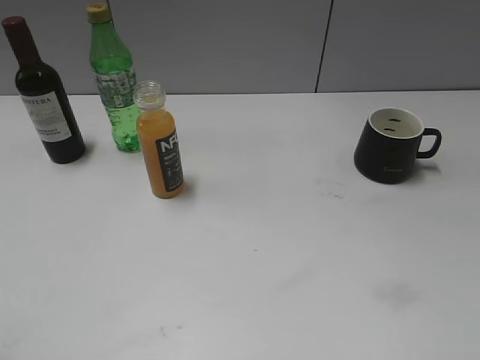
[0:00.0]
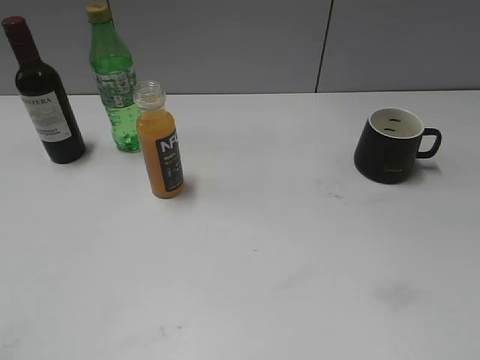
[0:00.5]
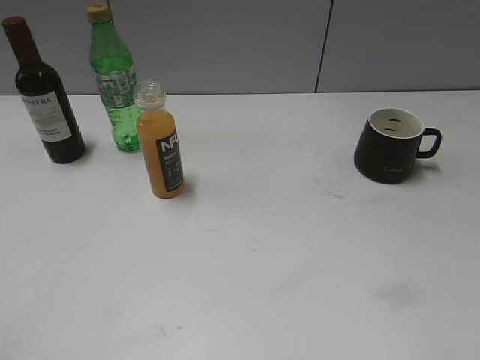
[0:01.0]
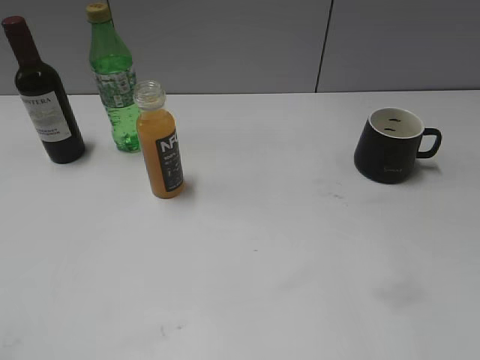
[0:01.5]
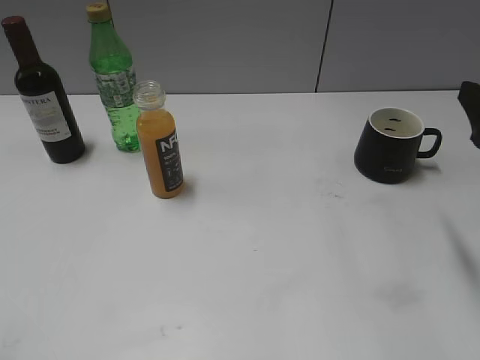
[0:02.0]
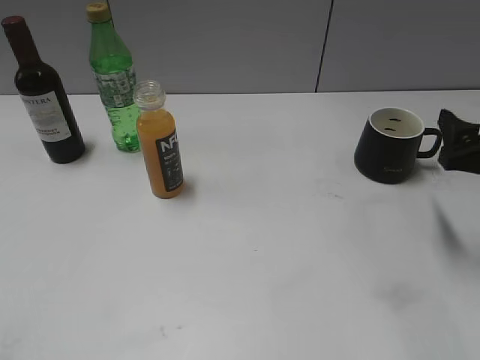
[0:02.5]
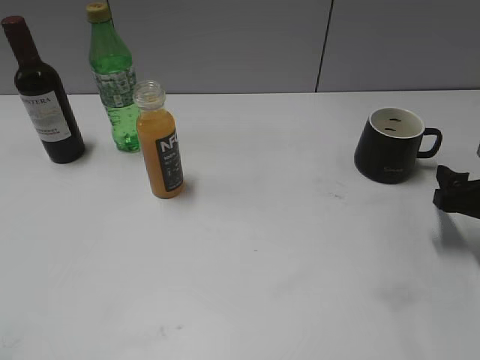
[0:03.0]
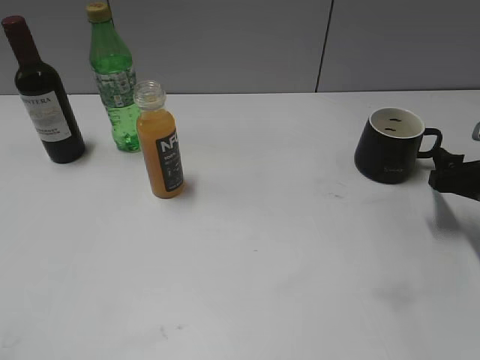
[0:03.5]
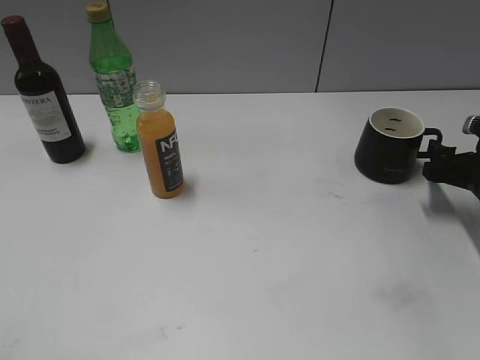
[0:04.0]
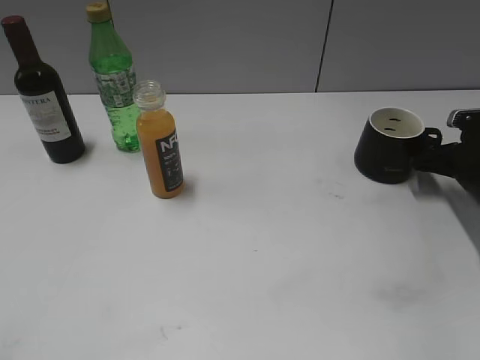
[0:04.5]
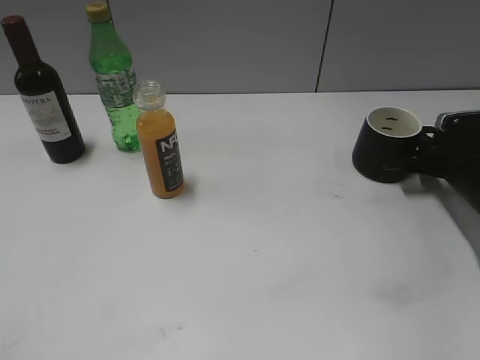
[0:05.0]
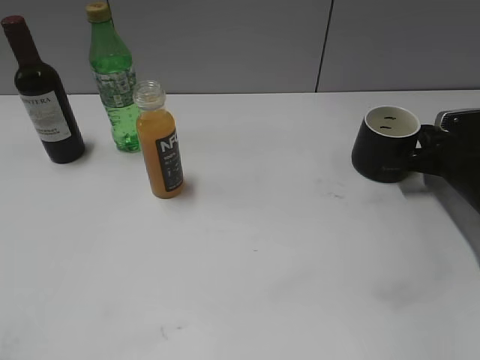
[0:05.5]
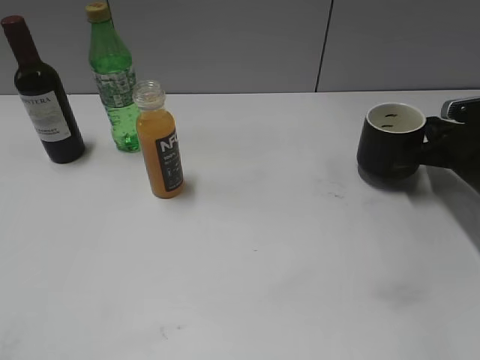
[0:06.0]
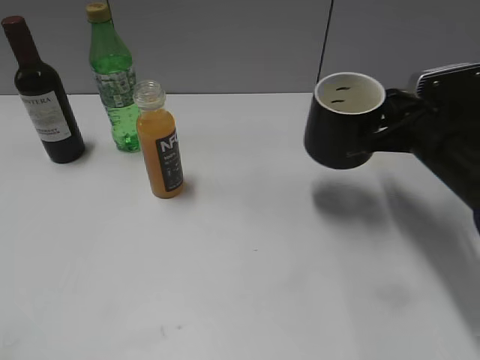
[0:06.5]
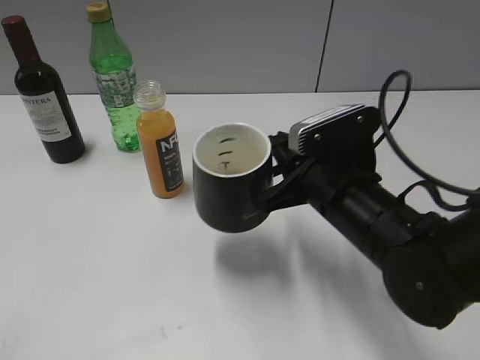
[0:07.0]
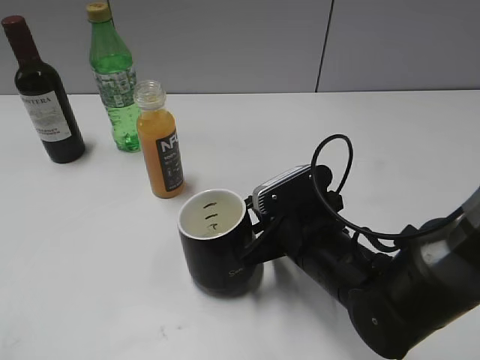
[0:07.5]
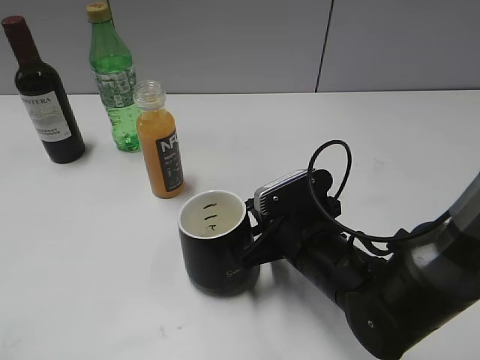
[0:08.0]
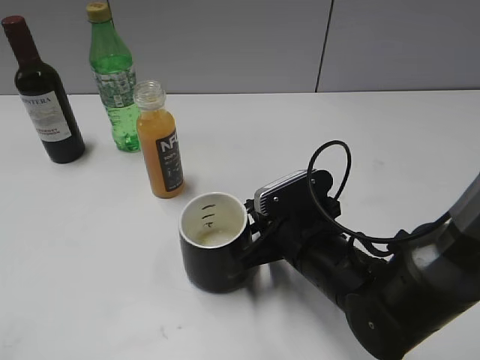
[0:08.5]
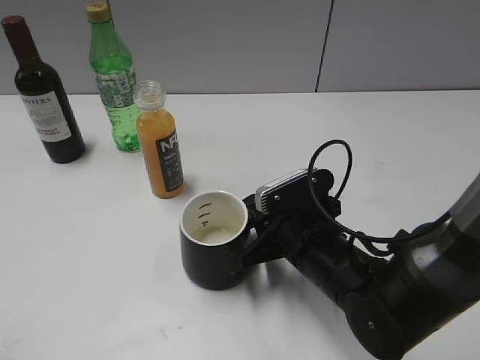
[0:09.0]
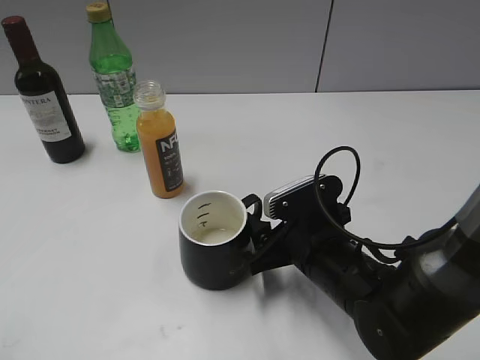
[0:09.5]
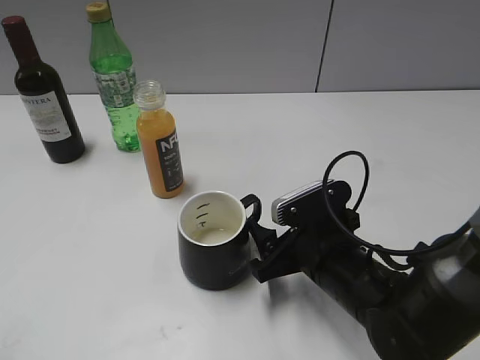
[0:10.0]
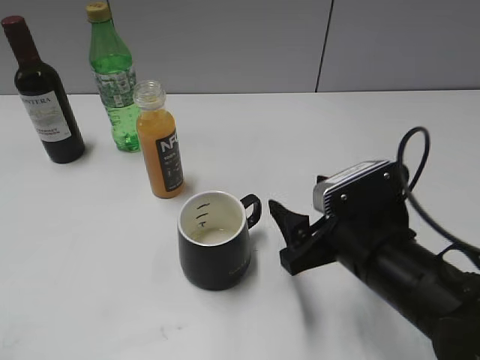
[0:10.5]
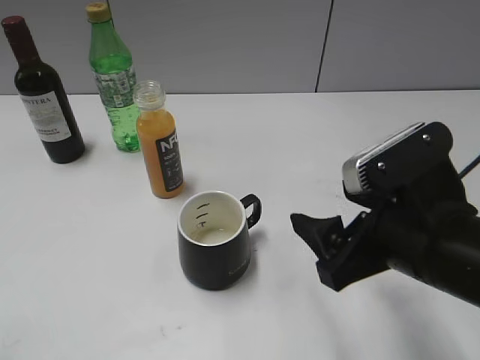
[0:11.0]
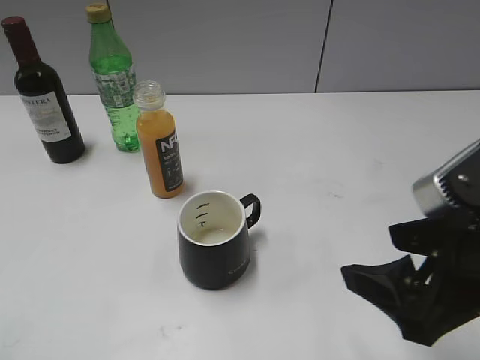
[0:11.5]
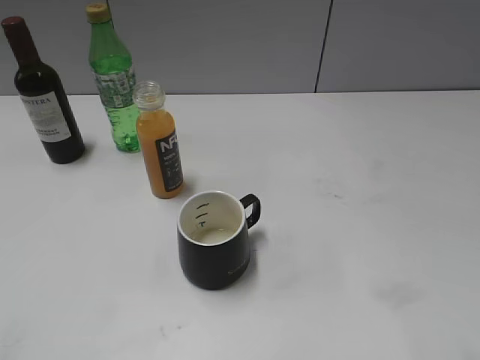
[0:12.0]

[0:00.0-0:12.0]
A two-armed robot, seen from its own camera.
Step, 0:02.0 to 0:05.0: Grasp the black cup with right gripper.
Step, 0:05.5 to 0:09.0: Place the black cup in the center of view with right gripper.
0:02.0 to 0:04.0: The right gripper heads downward and forward, covering some 20 cm.
0:04.0 to 0:06.0: The right gripper closes its fingers.
0:06.0 to 0:08.0: The right gripper moves to the left and backward, some 25 cm.
0:08.0 to 0:10.0: The right gripper opens.
0:10.0 to 0:12.0: The right gripper moves upward, to the right and backward, about 25 cm.

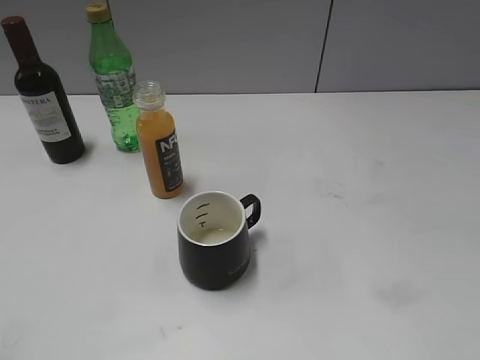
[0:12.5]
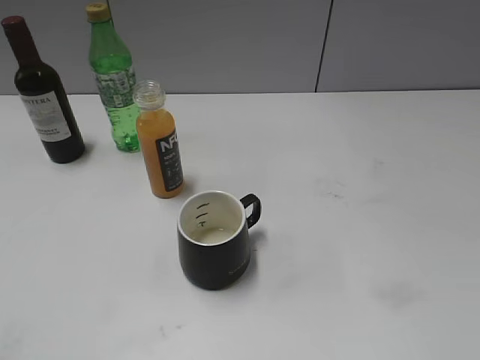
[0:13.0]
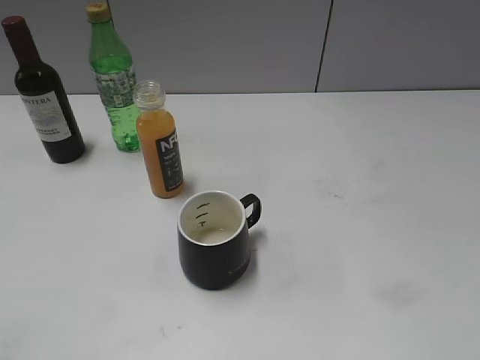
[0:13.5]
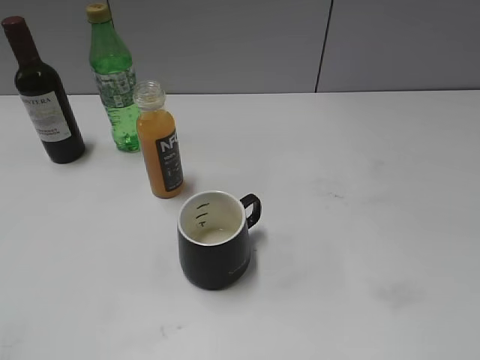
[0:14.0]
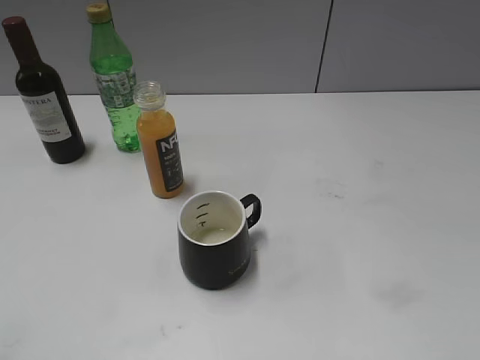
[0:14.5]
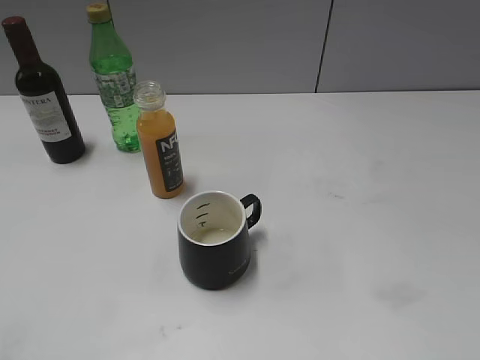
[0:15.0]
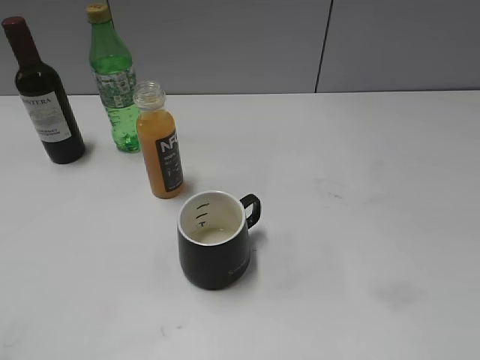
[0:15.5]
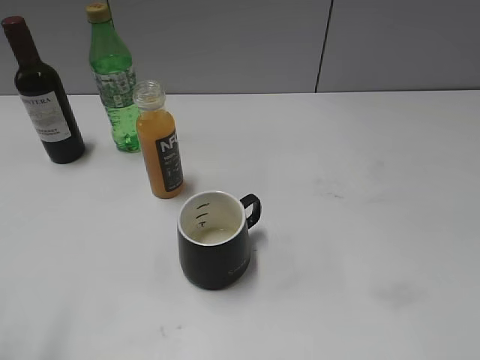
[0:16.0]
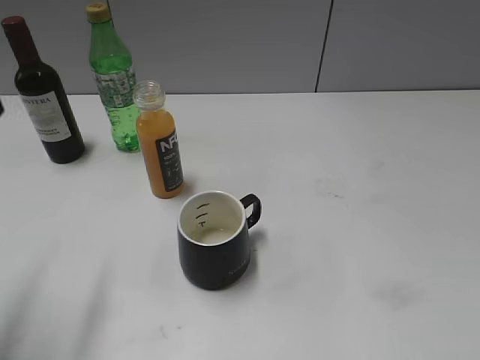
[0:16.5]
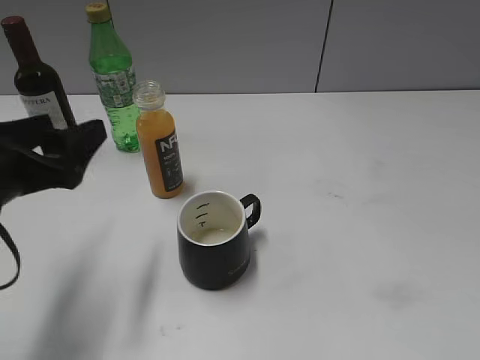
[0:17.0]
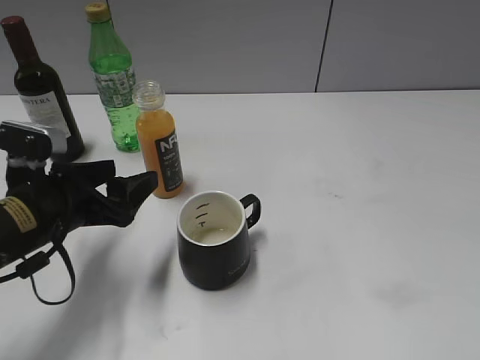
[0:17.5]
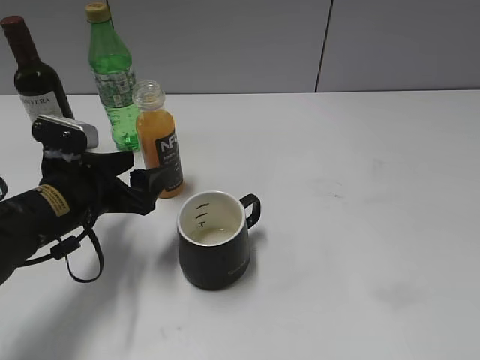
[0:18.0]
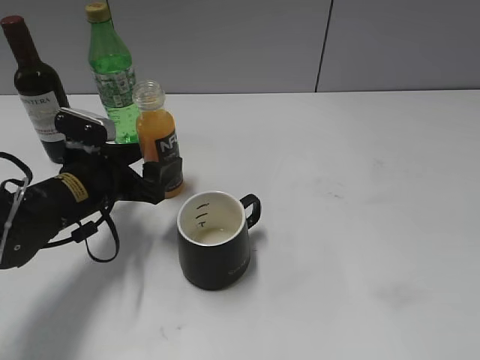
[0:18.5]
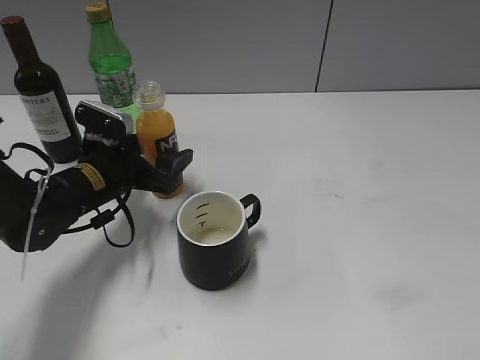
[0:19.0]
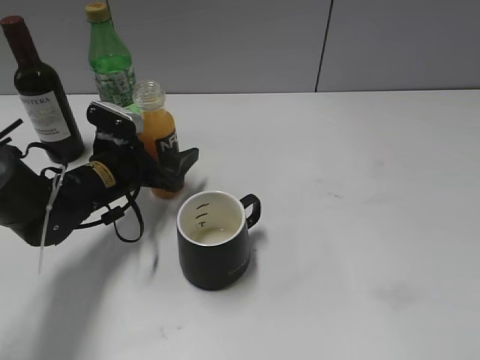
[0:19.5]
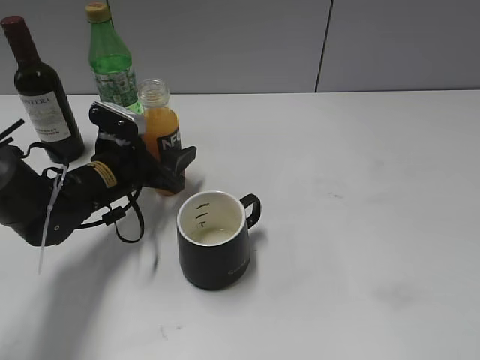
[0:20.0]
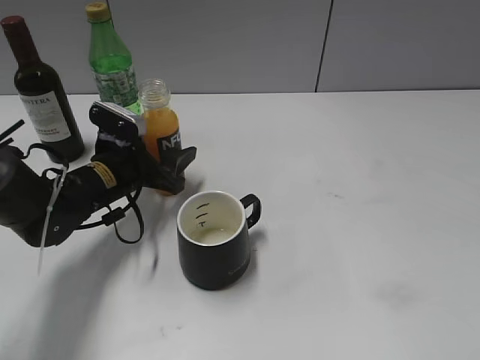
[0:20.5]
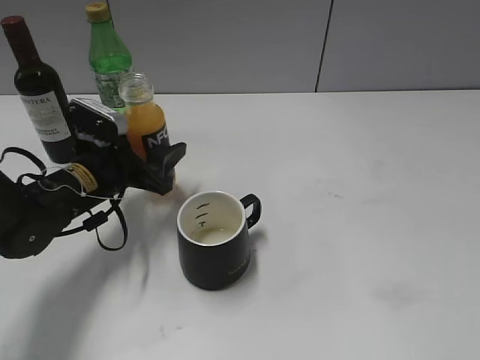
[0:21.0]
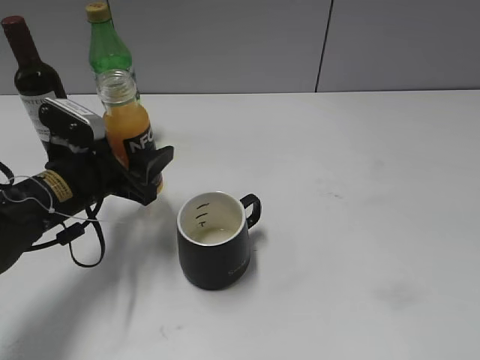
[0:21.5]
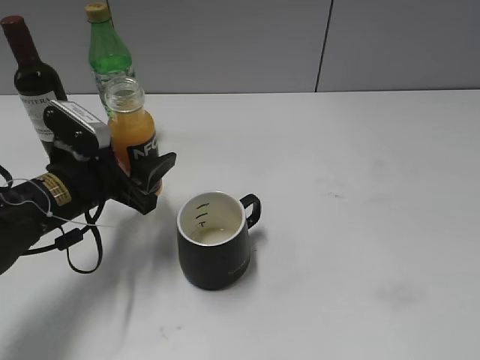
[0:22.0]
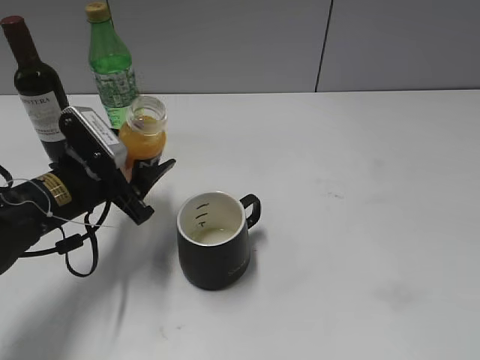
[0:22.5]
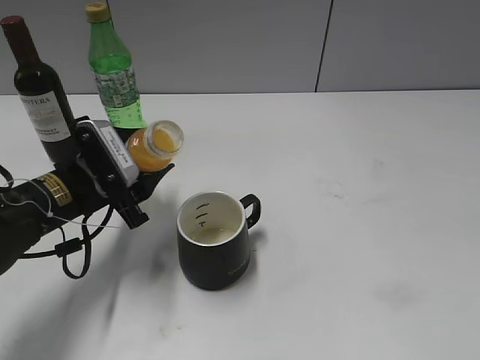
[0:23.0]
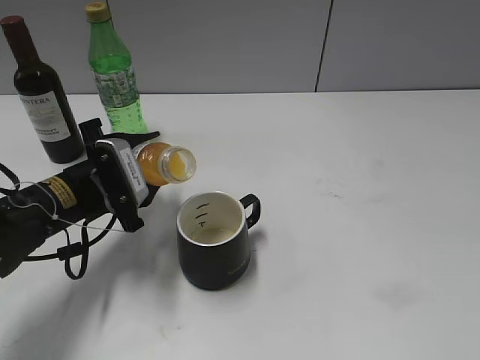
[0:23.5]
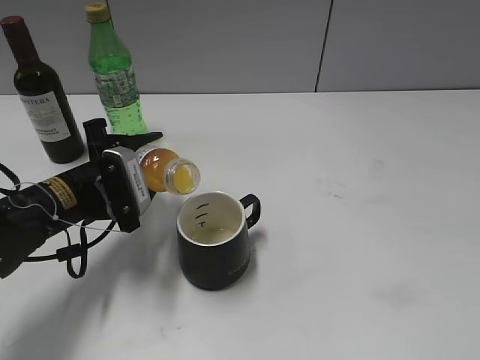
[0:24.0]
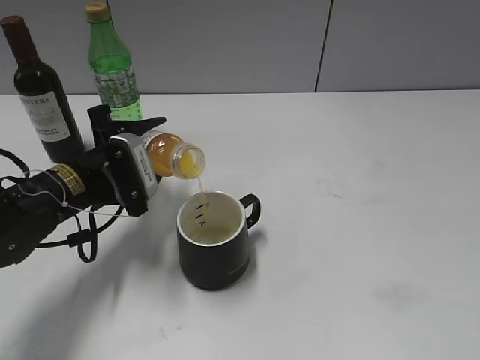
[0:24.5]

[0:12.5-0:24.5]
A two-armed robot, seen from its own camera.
Step, 0:12.5 to 0:20.5: Grasp the bottle with orange juice with left gripper.
0:14.5 to 0:16.5: The left gripper shifts approximately 15 cm forward, and opens up.
0:16.5 to 0:18.5: The left gripper travels downward, forward and to the right by some 25 cm.
0:18.5 to 0:20.5: The left gripper changes place by some 5 cm, and closes its fingers.
0:20.5 to 0:22.5: The left gripper travels backward by roughly 5 cm.

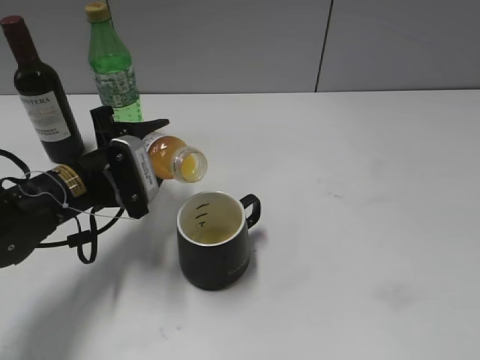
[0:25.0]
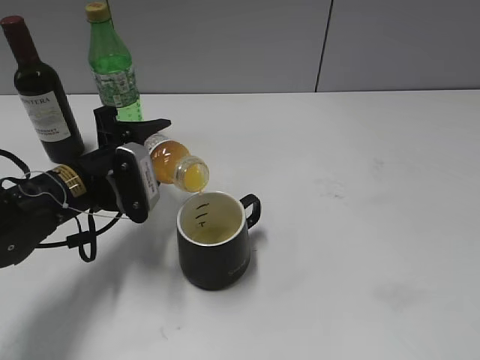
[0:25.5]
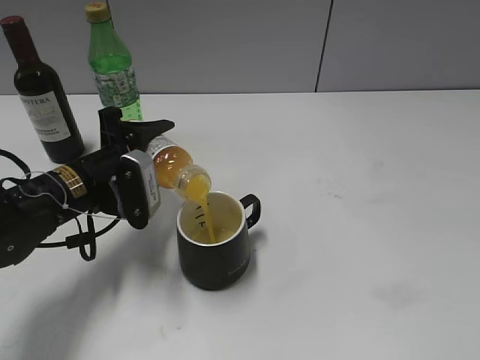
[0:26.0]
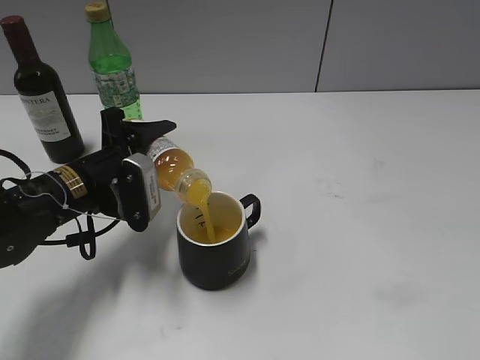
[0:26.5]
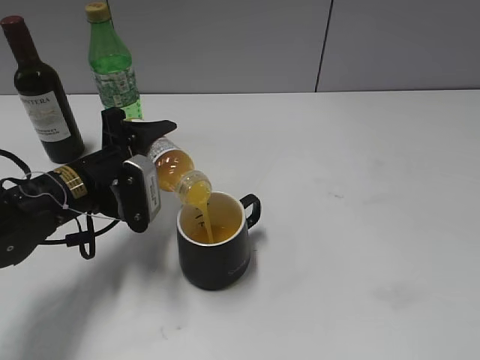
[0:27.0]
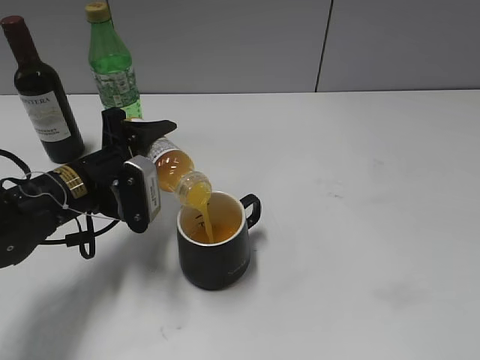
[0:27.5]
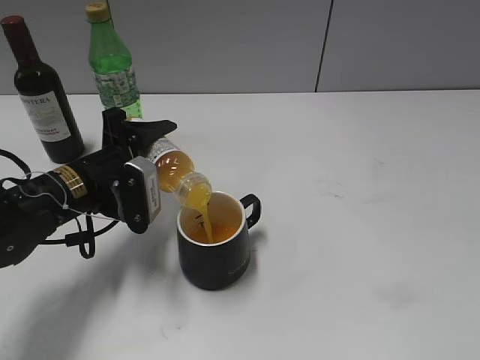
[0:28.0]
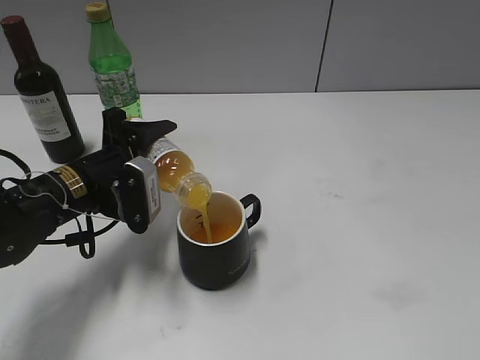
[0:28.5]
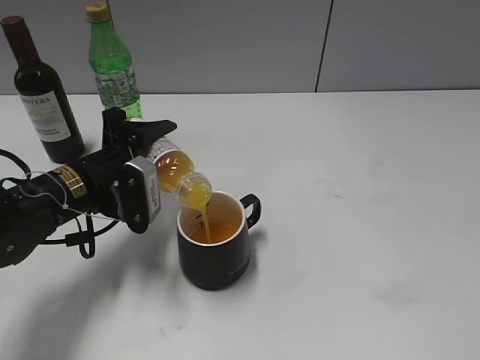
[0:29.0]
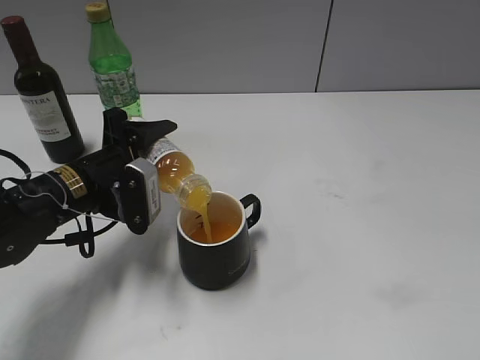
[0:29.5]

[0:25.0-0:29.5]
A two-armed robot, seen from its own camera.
0:25.0 to 0:27.0: The grippers move only a little.
0:27.0 to 0:29.5: Neither gripper changes place.
